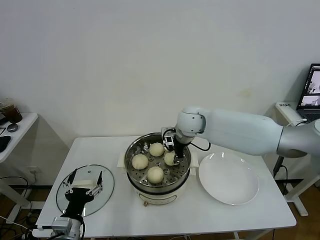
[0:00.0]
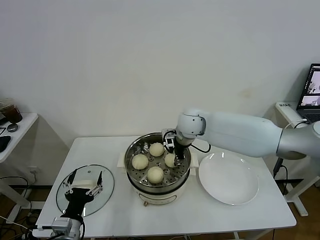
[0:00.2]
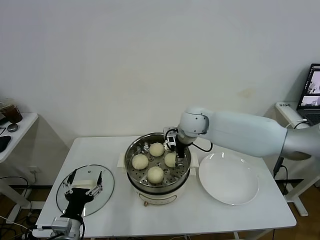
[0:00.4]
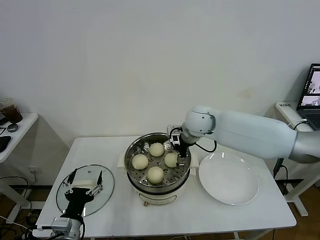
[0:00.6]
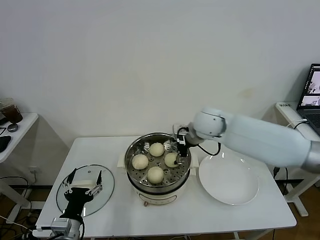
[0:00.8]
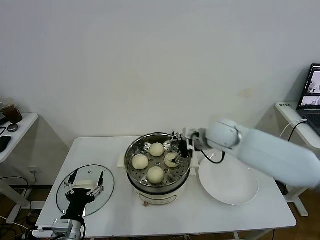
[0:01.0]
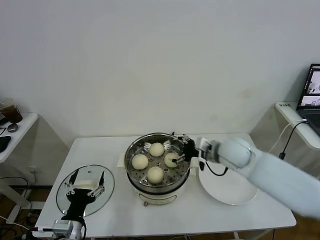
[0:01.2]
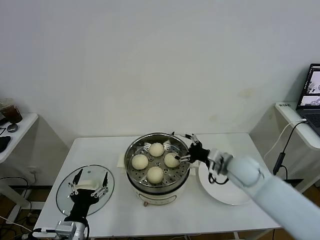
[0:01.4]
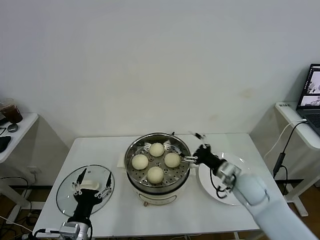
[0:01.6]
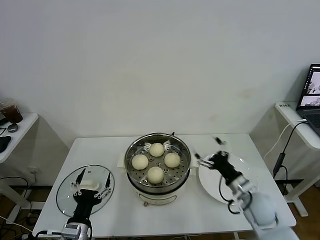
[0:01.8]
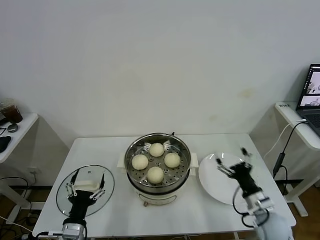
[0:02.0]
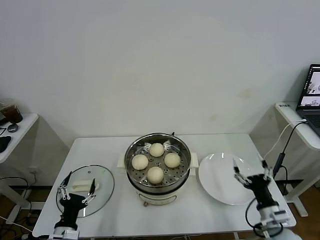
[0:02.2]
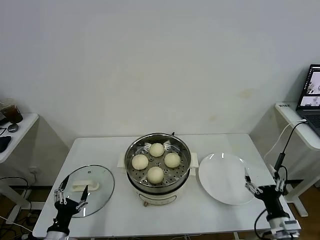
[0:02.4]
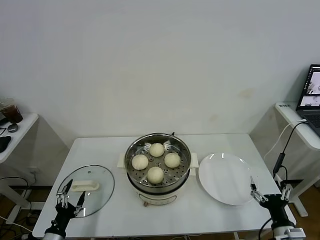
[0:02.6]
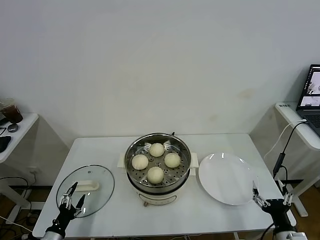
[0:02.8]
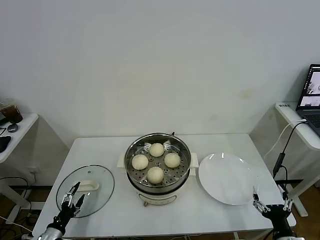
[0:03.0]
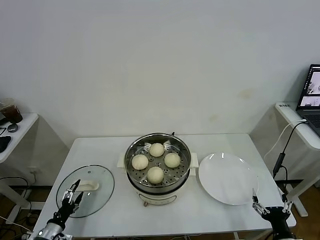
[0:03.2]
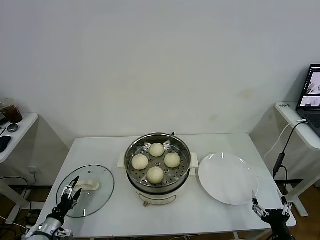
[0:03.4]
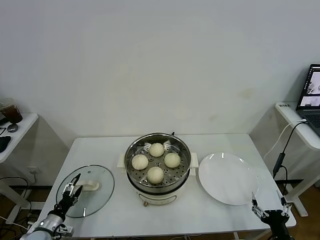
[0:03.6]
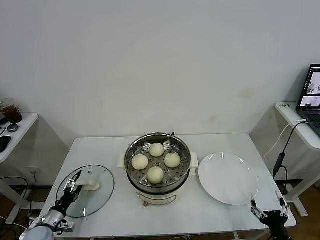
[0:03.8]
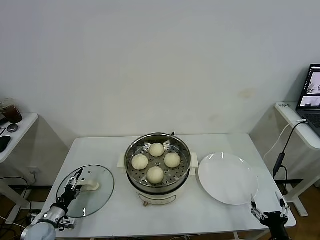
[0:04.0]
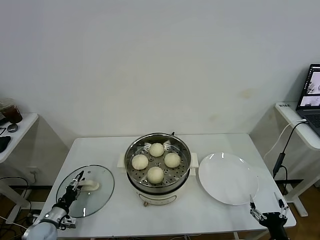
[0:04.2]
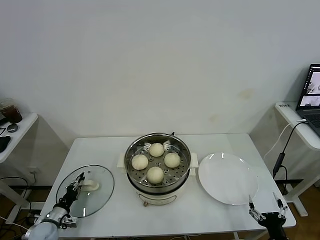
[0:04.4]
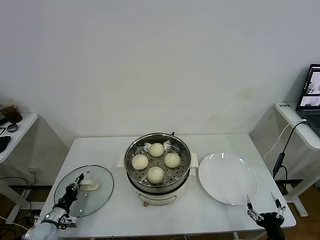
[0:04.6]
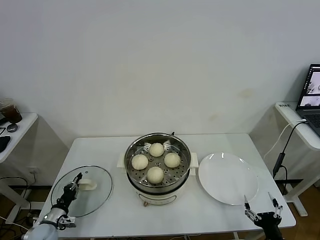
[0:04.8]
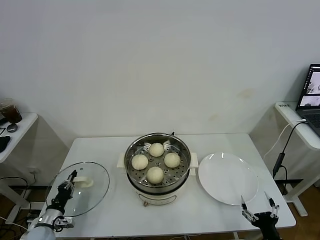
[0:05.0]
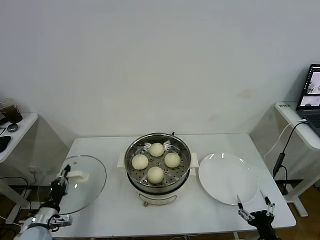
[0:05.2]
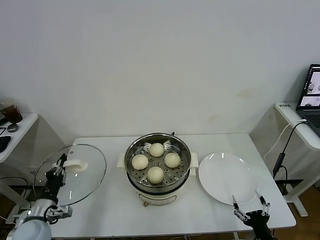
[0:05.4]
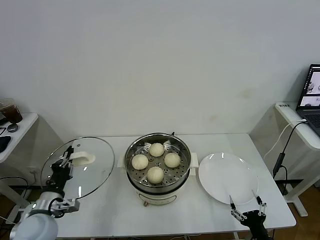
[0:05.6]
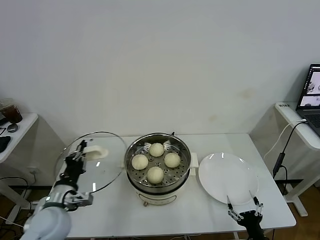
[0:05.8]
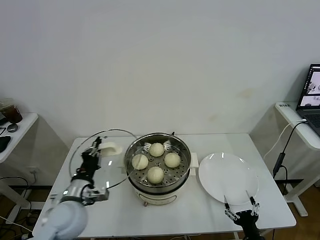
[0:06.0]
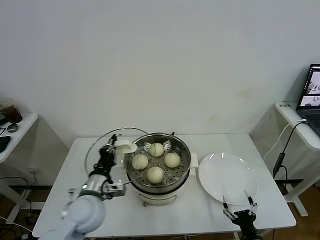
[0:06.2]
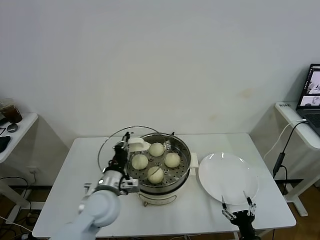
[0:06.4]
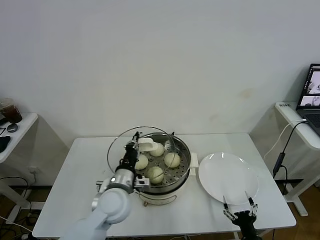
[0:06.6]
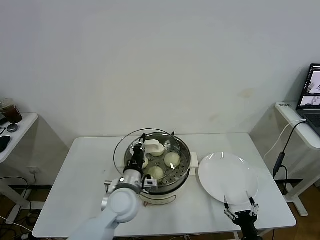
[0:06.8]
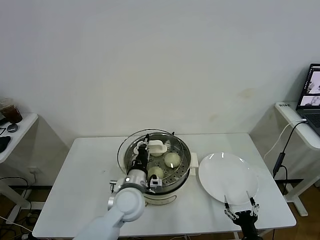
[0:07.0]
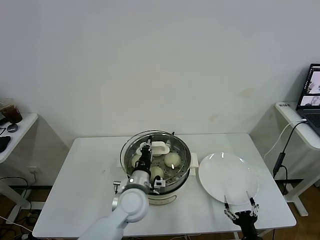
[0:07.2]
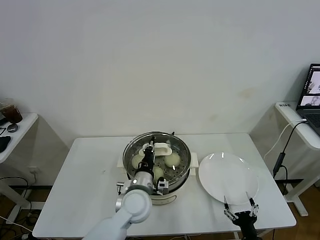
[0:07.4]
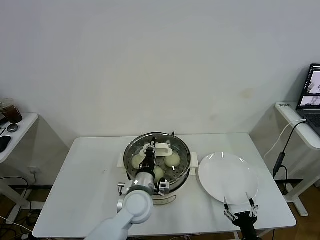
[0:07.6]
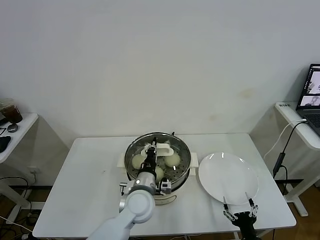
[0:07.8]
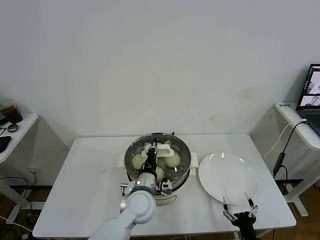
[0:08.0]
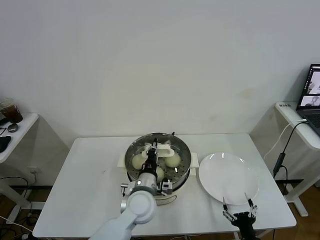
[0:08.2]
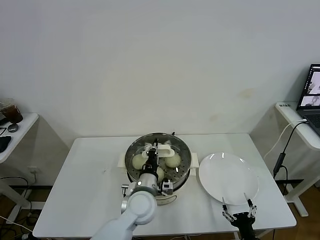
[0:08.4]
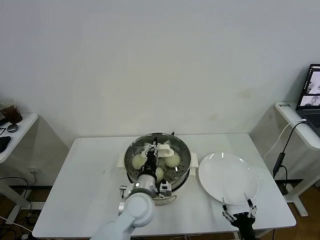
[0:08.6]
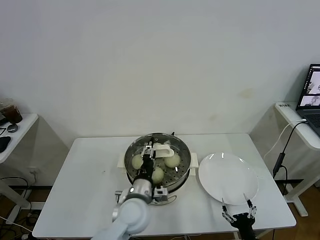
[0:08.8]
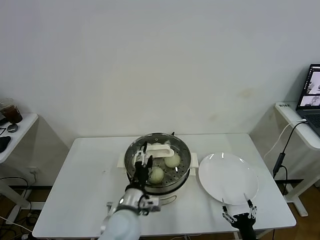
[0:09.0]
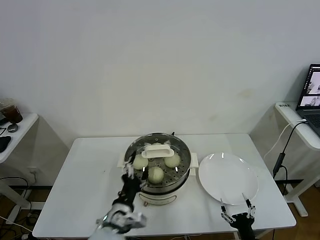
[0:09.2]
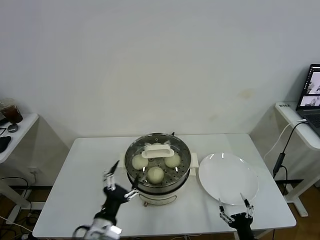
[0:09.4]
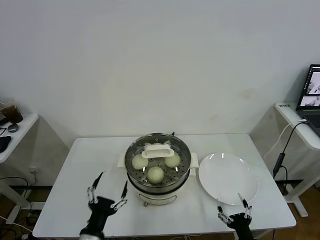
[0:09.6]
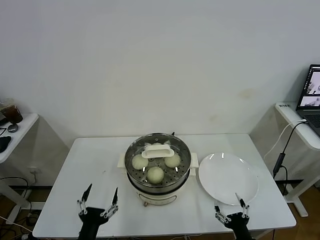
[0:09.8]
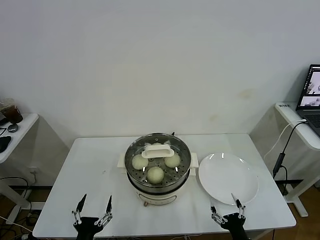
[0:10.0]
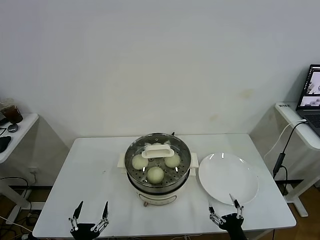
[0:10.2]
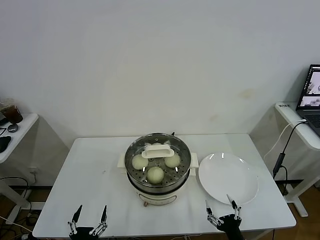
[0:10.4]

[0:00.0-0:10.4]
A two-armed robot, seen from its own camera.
Task of the whole recording: take steamed baozi put them in steamer.
Step, 0:01.0 to 0:04.6: Grasp the pot lid with left gripper.
Step, 0:04.8 to 0:08.6: Place the pot lid on the steamer with left gripper.
0:00.0 to 0:01.4: The right gripper travels to the right, backward and downward by approximately 25 cm, and opens.
0:01.4 to 0:03.0: The right gripper goes approximately 30 cm backward, downward and to the right. The left gripper moves to the left and downward, about 20 cm.
0:03.0 to 0:04.4: The left gripper is displaced forward by roughly 10 cm, and closes its fingers.
0:04.4 to 0:06.0: The left gripper goes some 30 cm upward and to the right; the right gripper moves to the left, roughly 5 cm.
0:06.0 to 0:07.4: The left gripper travels to the right by some 20 cm.
0:07.4 to 0:09.0: The left gripper shifts roughly 5 cm backward, and opens up.
0:09.0 to 0:10.4: The left gripper heads backward, to the left and downward, covering roughly 25 cm; the right gripper ends up about 5 cm from where it was.
